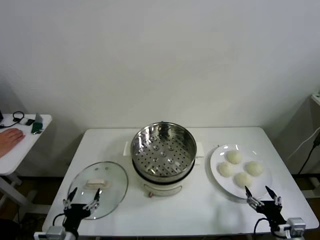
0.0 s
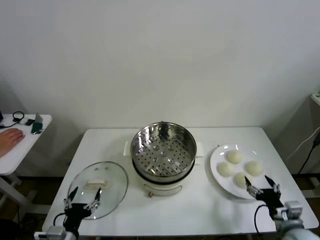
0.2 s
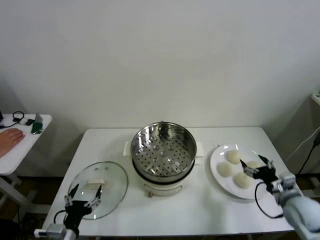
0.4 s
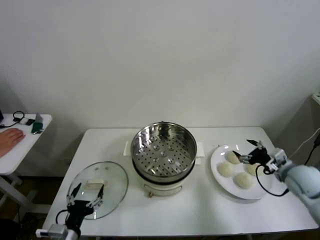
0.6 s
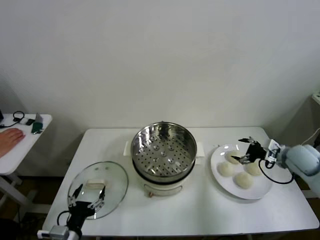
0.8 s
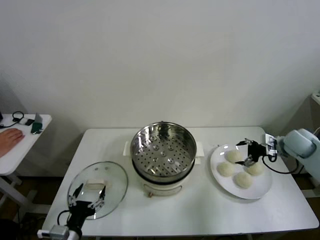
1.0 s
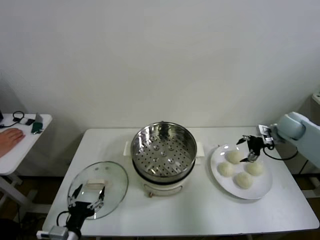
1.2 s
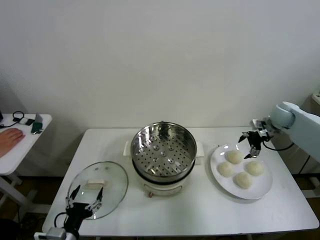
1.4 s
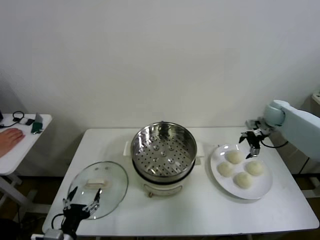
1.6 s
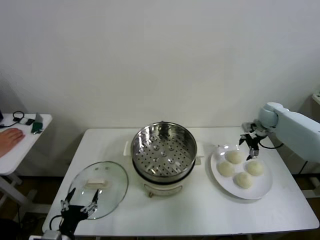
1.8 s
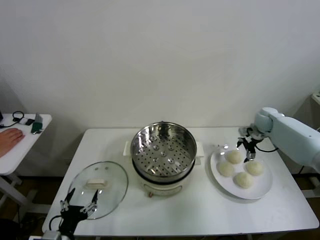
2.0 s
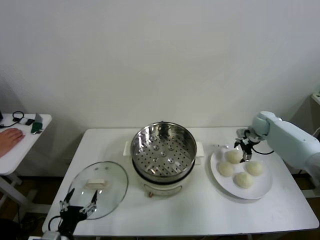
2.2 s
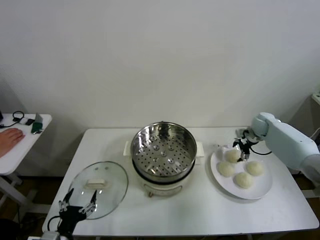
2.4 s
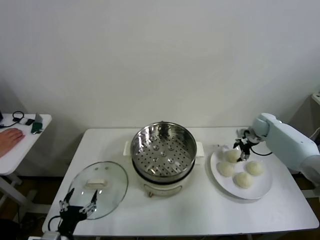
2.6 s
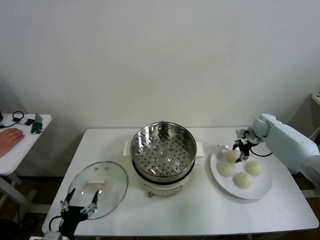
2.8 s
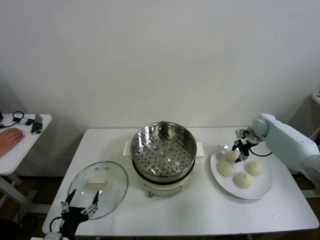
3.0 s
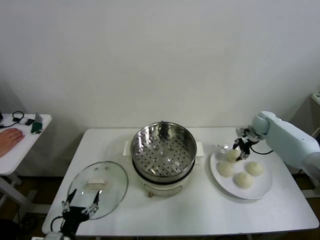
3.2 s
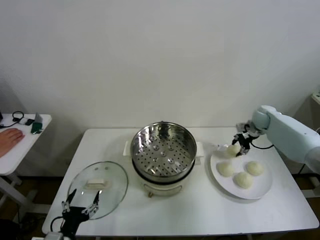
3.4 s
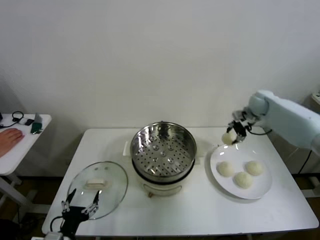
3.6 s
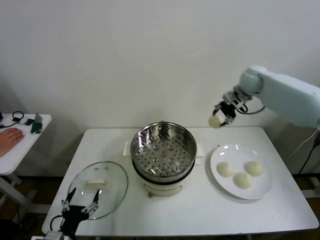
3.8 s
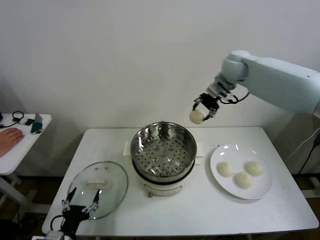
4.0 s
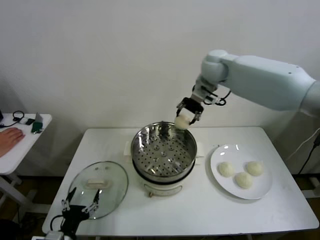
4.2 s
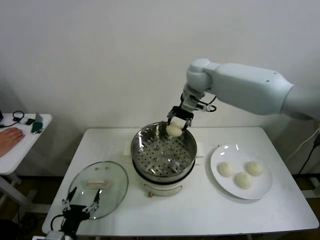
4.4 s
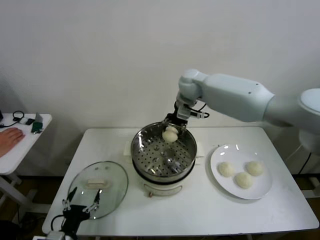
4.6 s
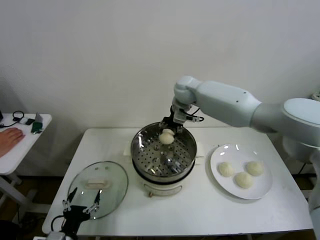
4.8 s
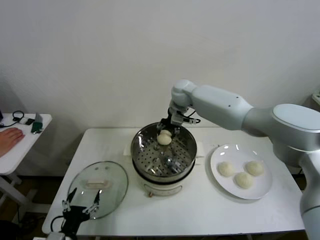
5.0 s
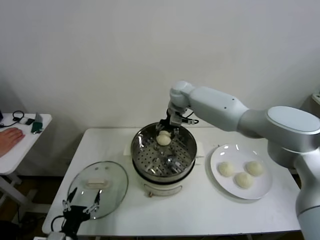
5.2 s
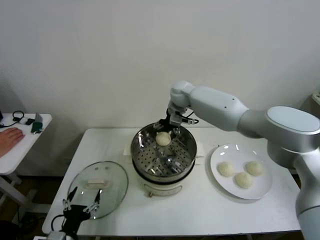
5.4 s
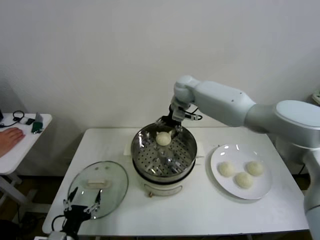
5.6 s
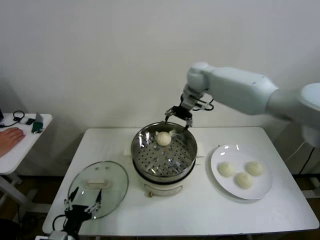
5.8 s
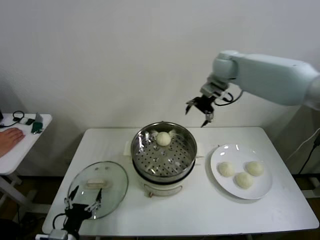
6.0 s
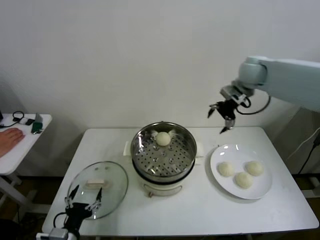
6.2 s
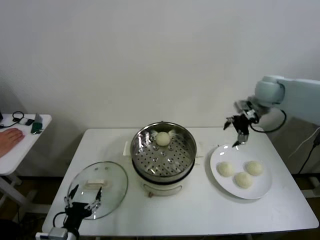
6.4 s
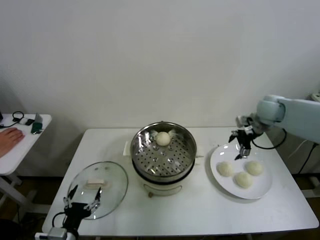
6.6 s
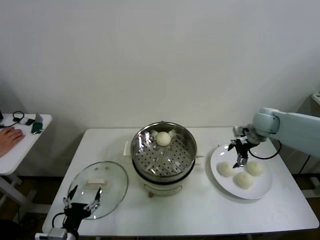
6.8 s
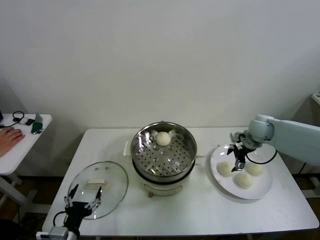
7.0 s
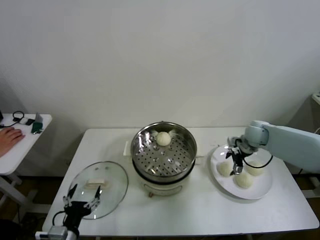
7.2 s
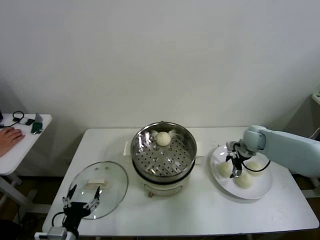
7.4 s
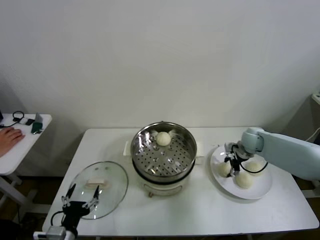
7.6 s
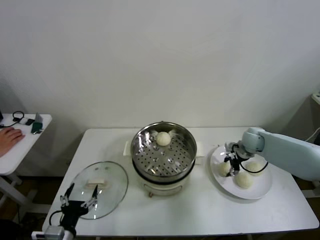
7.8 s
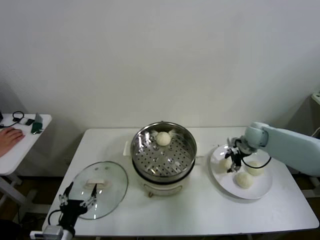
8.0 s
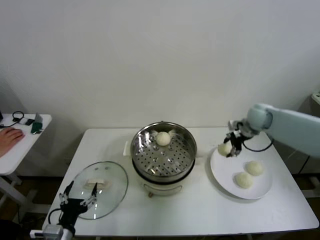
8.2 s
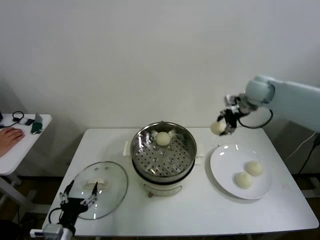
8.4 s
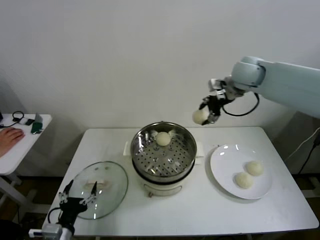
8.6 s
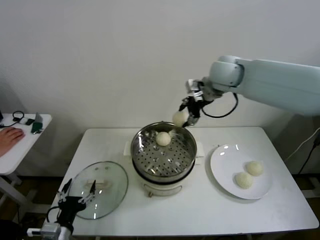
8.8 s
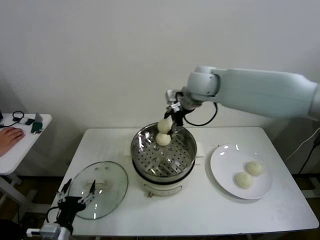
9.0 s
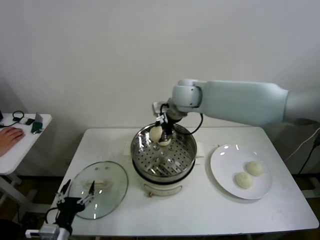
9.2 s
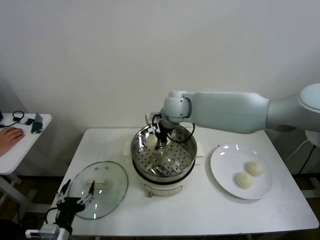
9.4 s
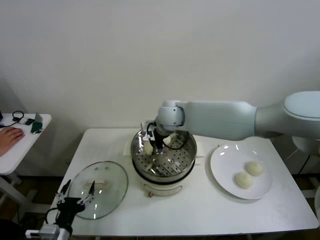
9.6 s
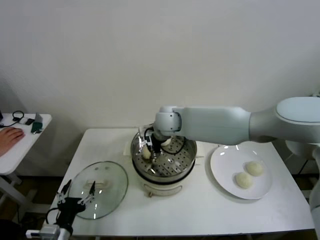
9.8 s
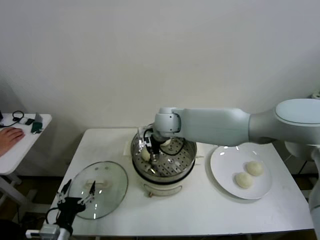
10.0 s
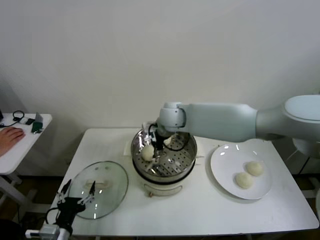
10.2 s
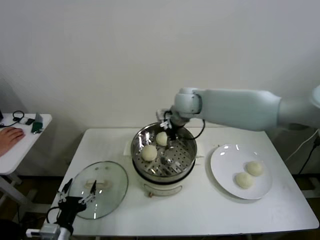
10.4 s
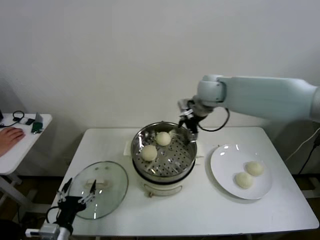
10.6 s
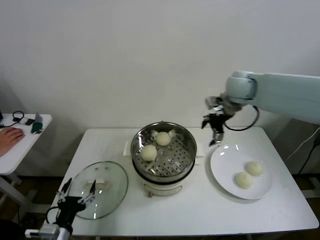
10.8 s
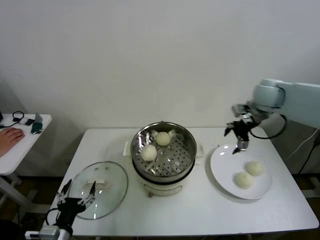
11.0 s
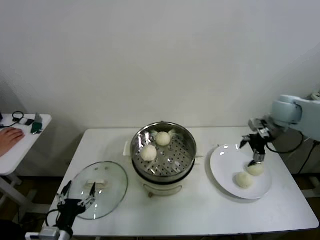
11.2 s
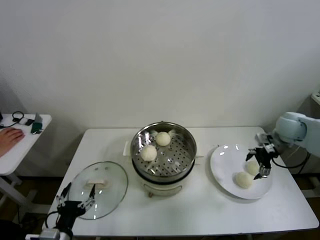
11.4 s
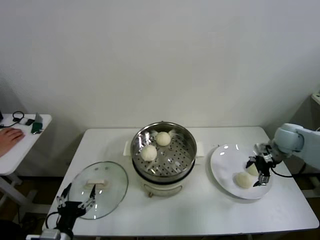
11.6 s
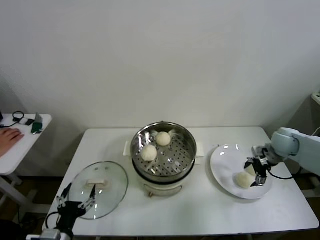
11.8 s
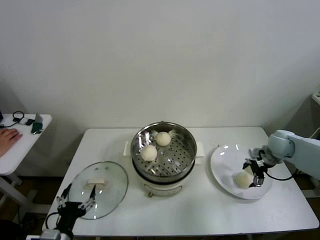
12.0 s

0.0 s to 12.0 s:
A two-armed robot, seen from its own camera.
Step, 0.0 to 2.8 s: Grasp the baozi in the plate with right gripper.
Step, 3.0 to 5.2 s: Place the baozi on the steamer with right gripper.
Step, 5.6 to 7.6 s: Grasp the baozi in the plate with right gripper.
Step, 7.8 to 9.8 s: Place the baozi on the steamer with right gripper.
1.6 to 3.0 s: The right gripper is displaced downward by approximately 5 cm, and closes its fingers.
3.0 to 4.4 s: The right gripper travels to the left and upward by roughly 40 cm.
4.4 to 6.0 s: The right gripper travels to the right by about 15 cm, and opens its fingers.
6.0 to 7.6 s: The right gripper travels downward by about 30 cm, and closes its fingers.
7.6 to 9.0 s: The right gripper is displaced to the left and upward by about 35 cm.
9.0 to 10.4 s: The right gripper opens.
10.4 to 12.0 s: The right gripper heads to the right and downward, covering roughly 35 cm.

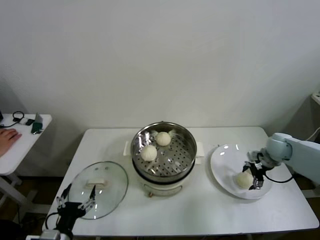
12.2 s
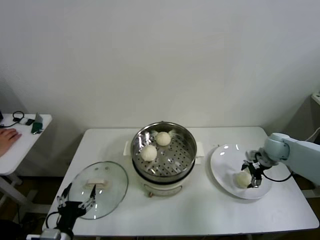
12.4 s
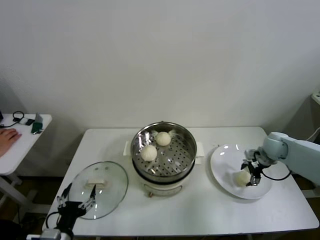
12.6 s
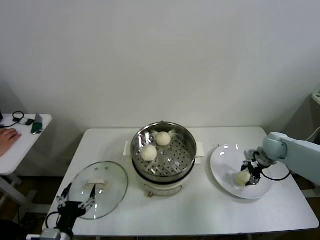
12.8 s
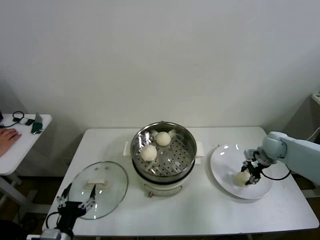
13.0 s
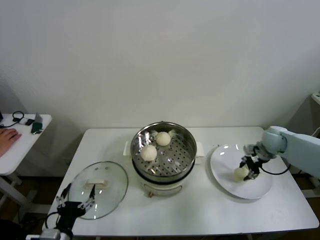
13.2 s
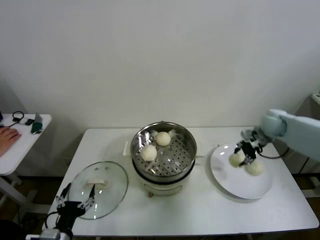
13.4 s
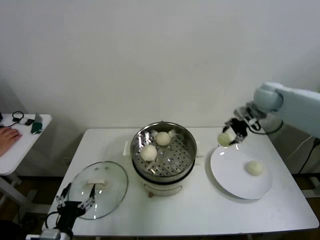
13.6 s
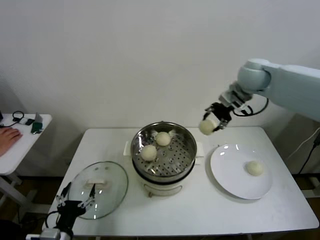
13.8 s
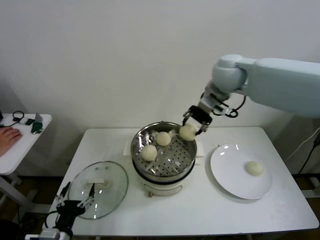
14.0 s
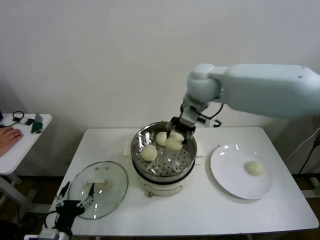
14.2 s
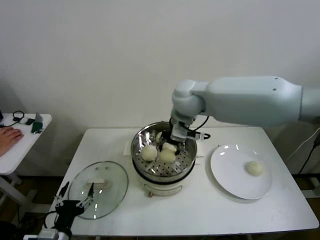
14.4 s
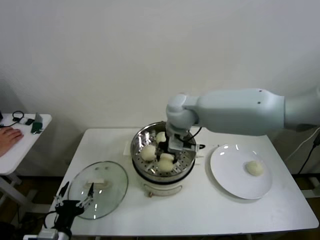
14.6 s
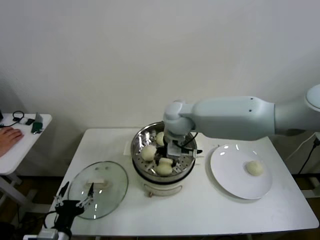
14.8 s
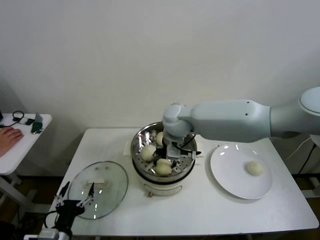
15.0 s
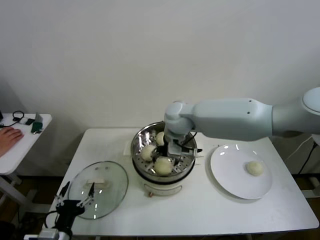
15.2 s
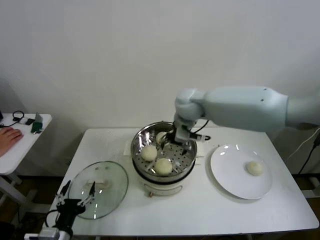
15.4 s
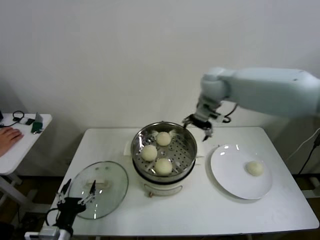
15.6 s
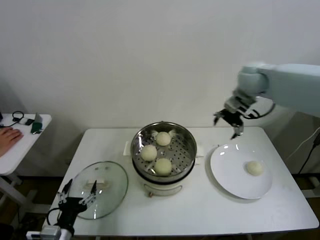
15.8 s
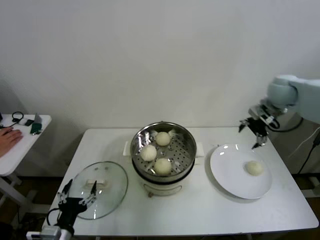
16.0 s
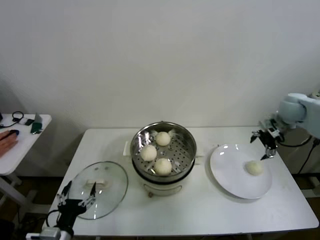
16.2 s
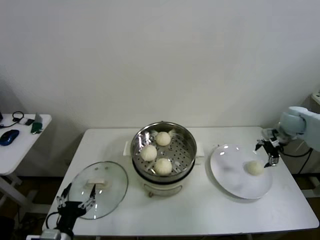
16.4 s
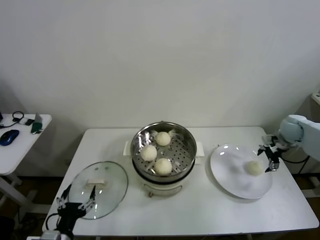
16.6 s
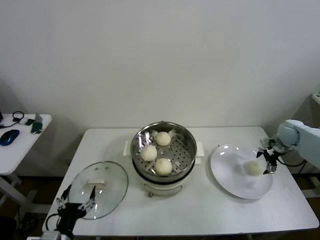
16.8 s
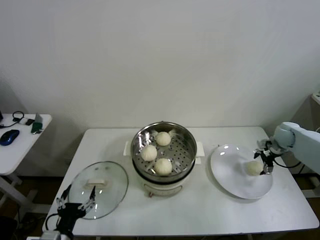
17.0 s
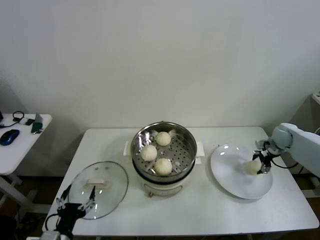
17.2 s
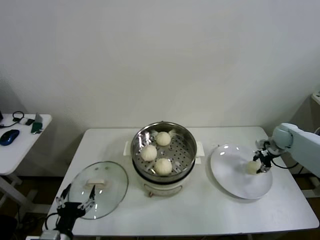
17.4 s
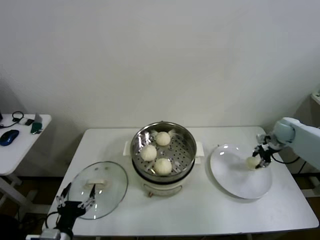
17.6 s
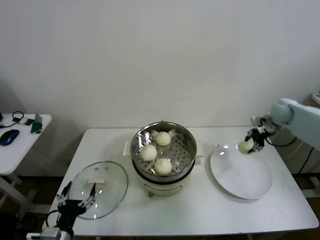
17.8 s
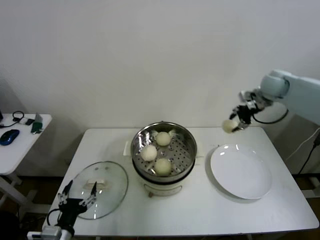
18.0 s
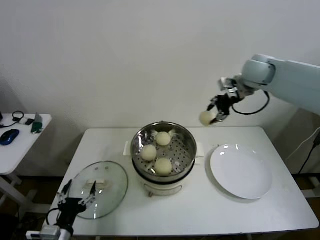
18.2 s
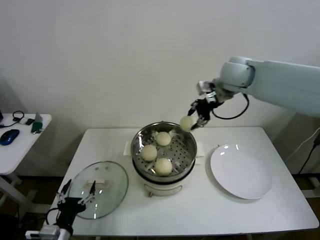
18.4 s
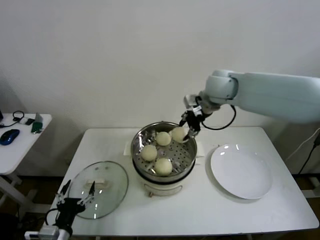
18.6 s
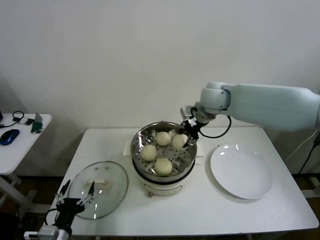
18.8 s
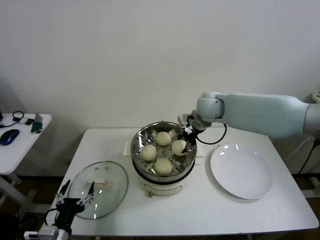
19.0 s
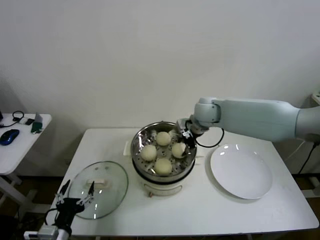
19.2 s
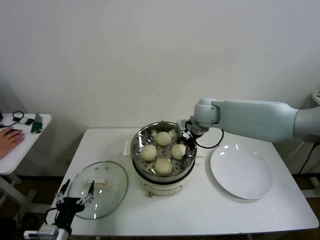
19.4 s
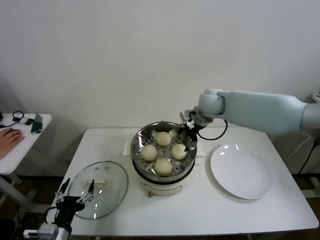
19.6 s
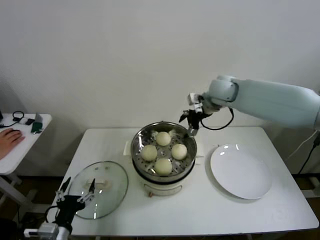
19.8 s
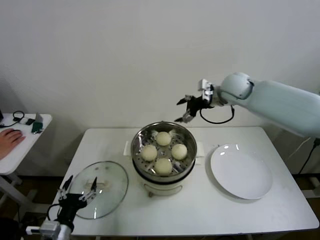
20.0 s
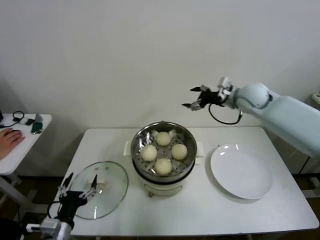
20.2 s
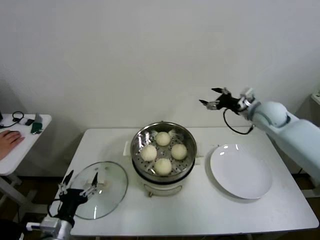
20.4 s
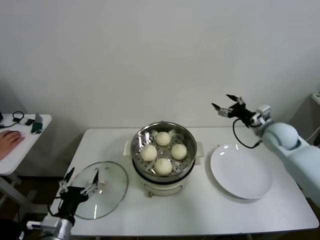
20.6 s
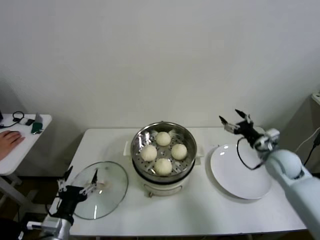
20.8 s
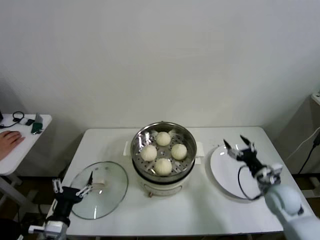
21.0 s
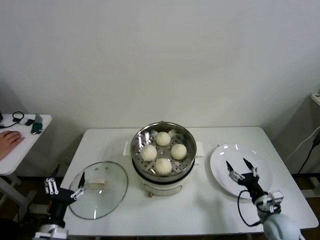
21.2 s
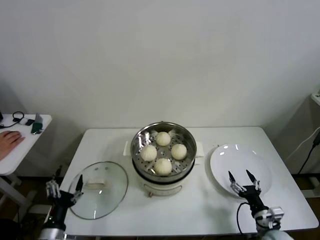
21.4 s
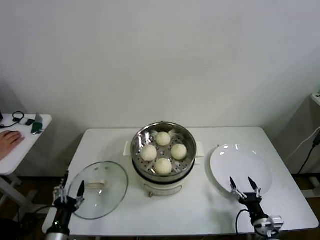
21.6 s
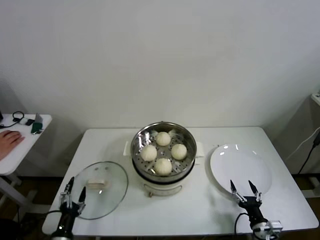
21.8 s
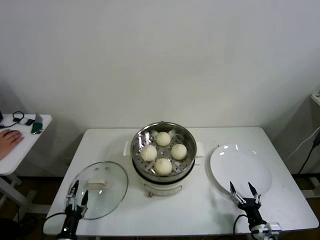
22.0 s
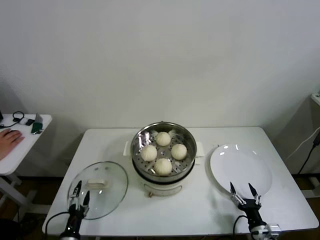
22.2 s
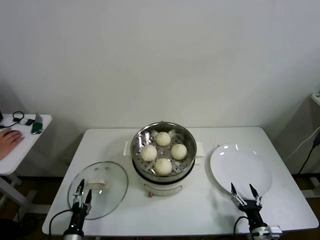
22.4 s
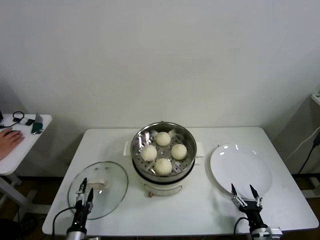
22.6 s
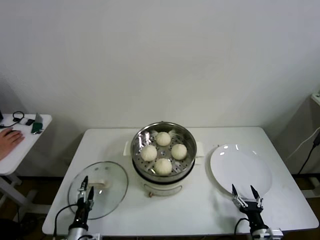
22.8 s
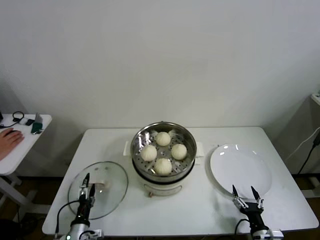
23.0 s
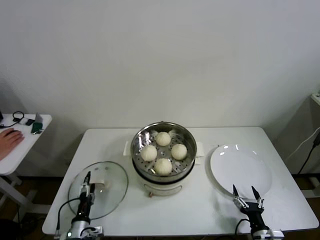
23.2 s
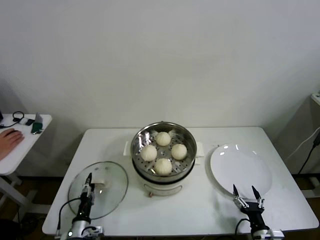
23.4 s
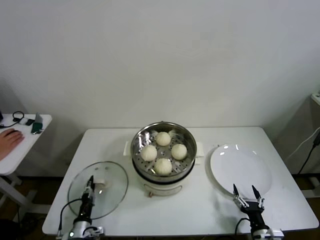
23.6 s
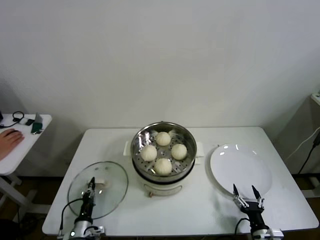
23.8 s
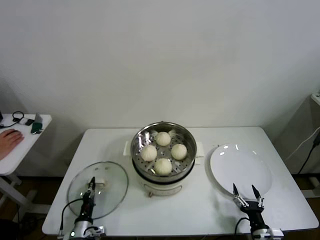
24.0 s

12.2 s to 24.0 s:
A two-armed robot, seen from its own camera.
Step, 13.0 to 15.0 s: Place the baozi on the steamer with right gripper.
Step, 15.2 to 17.2 s: Grasp the baozi in the plate with right gripper.
Step, 17.6 to 19.4 s: Place the baozi on the steamer with right gripper.
Step, 19.6 to 23.6 s: Grasp the pot lid with left gripper.
12.2 to 13.6 s: The right gripper heads upward and to the left, covering about 20 cm, and closes up.
13.6 to 15.2 s: The right gripper goes some 30 cm to the left, and opens its fingers.
15.2 to 16.6 s: The right gripper heads to the right, covering some 40 cm.
16.6 to 18.2 s: The right gripper moves upward and to the left, approximately 30 cm, and closes.
18.2 to 19.6 s: The right gripper heads to the left and downward, covering about 15 cm, and opens its fingers.
19.6 to 21.0 s: The right gripper heads downward, to the right and backward, covering roughly 40 cm.
21.0 to 22.6 s: The right gripper goes some 20 cm backward and downward, while the left gripper is displaced downward by some 15 cm.
22.6 to 24.0 s: The left gripper moves some 5 cm, and closes up.
